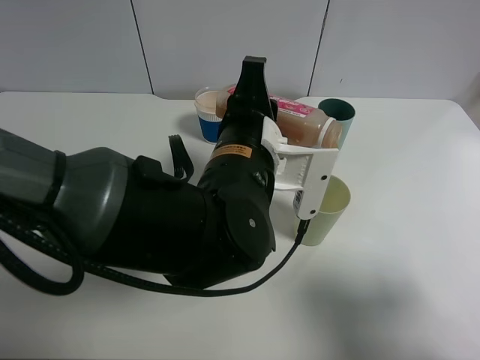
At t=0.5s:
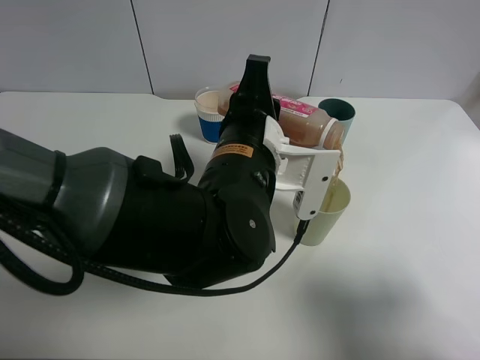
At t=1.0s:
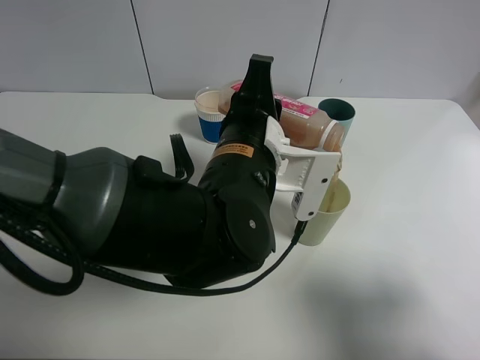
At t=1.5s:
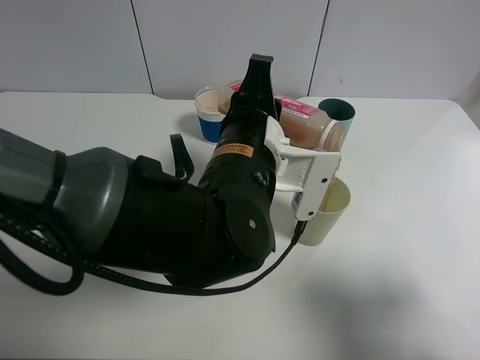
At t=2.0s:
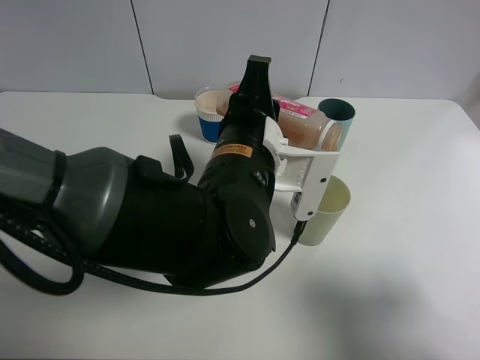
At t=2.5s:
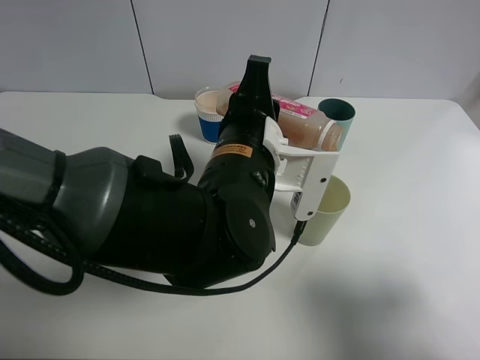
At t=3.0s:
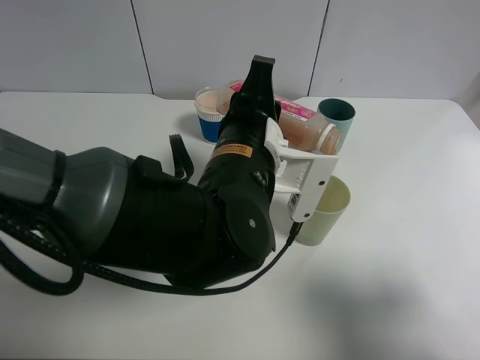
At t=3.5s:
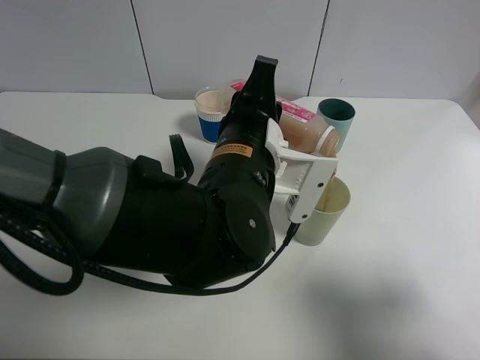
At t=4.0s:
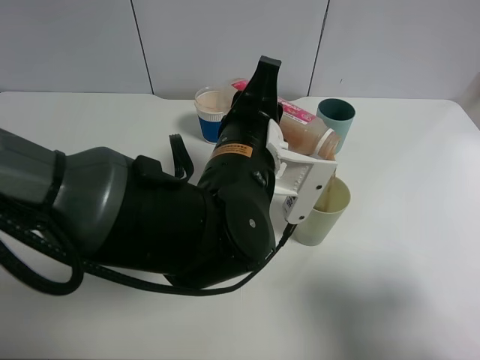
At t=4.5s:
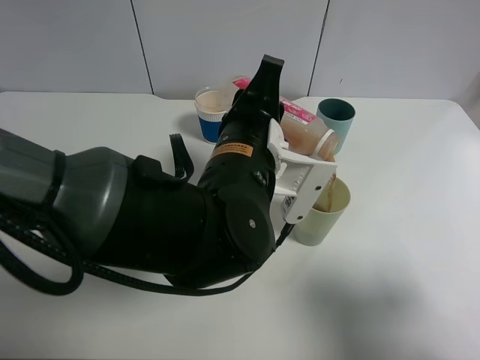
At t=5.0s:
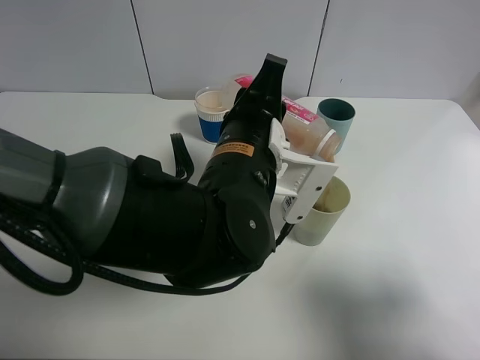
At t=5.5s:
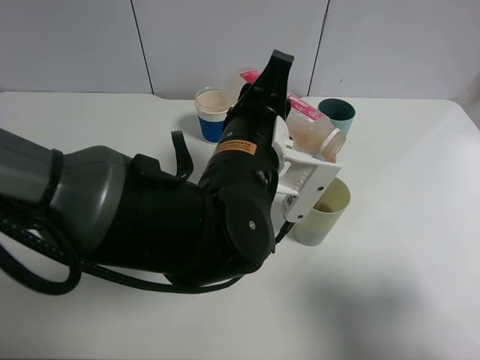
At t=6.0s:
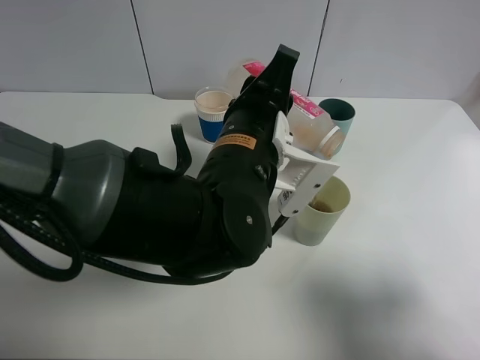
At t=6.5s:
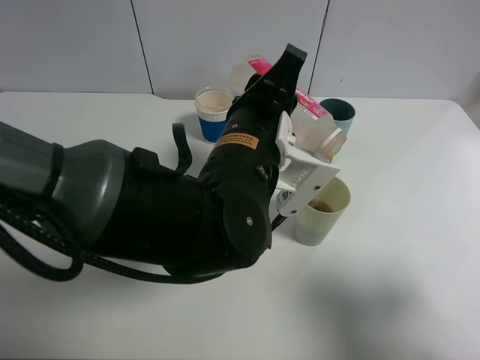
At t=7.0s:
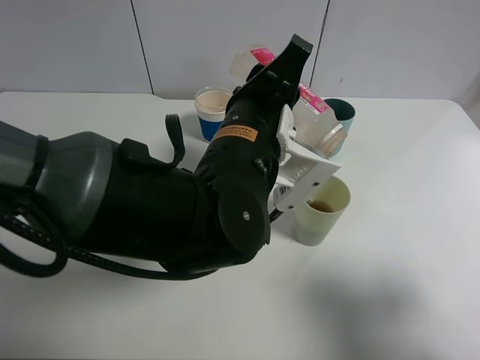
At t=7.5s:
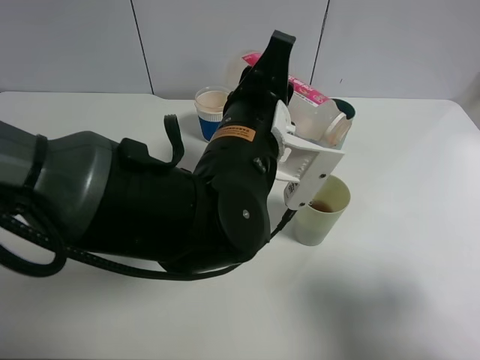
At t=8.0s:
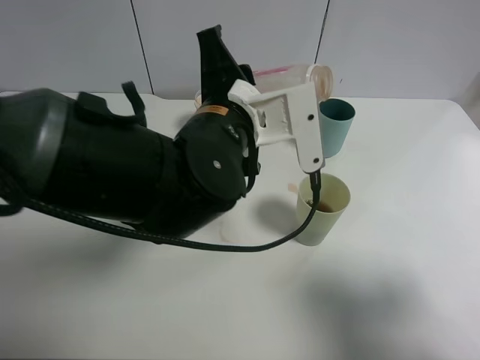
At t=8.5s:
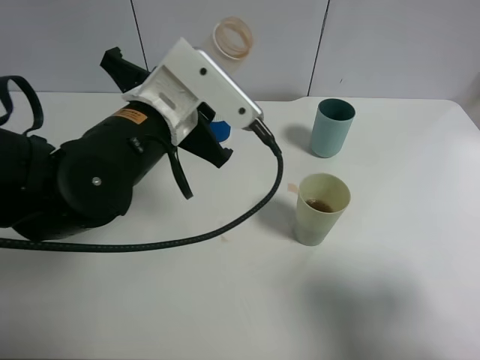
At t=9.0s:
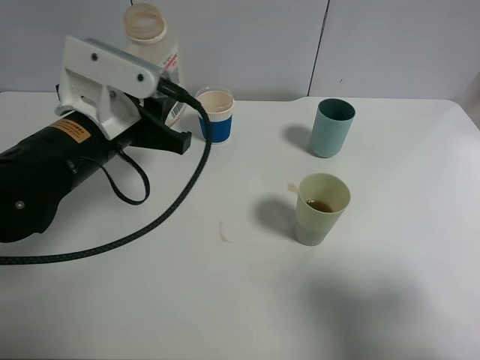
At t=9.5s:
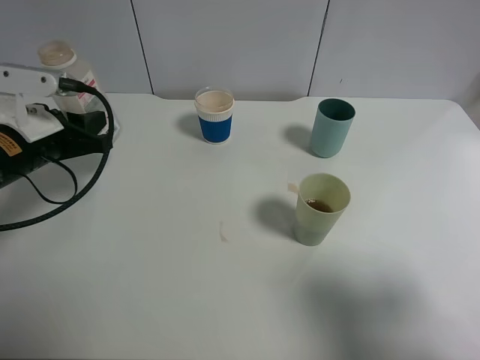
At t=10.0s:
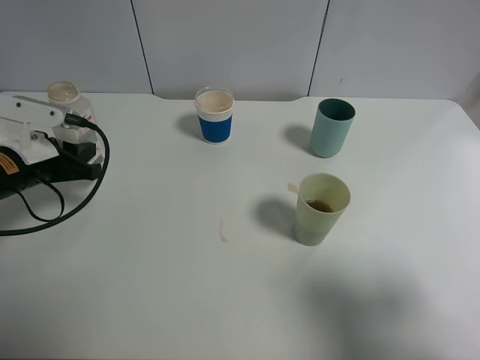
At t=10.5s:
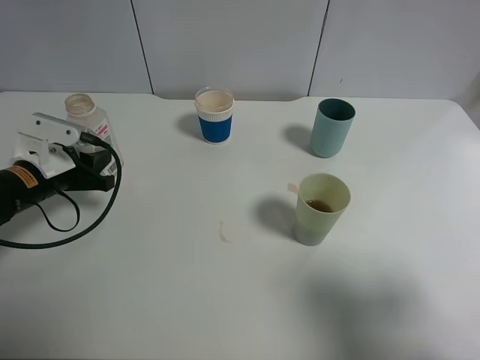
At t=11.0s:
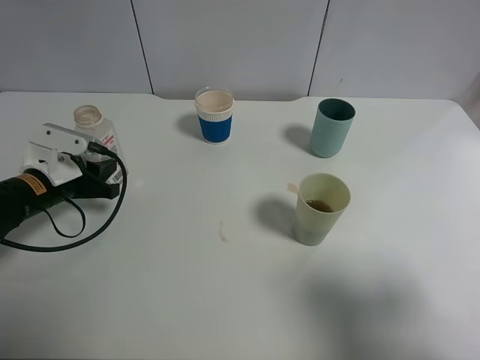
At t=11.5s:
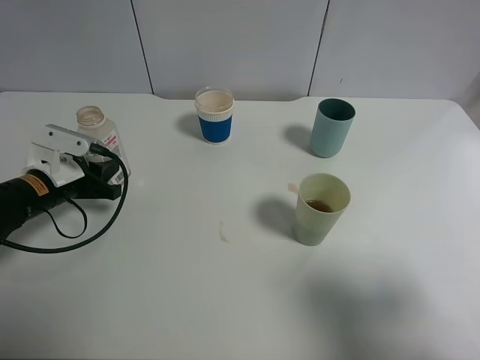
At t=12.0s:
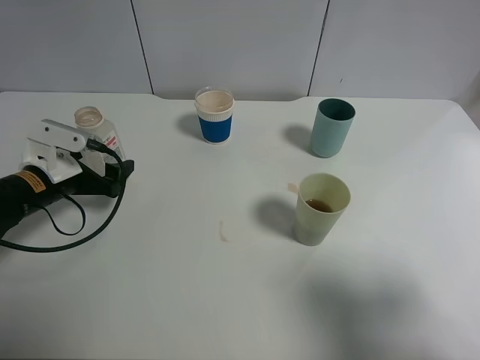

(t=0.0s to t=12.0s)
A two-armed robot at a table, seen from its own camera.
Task of the whole recording: use a clamp to hold the bottle of the drink, pour the beverage into a random cup, then clamp the cup containing the drink and pour the drink into another random cup.
Step, t=0.0s - t=7.5s: Pour the drink into the green plastic cup with left gripper.
Step, t=8.0s - t=11.5s: Place the drink bottle on the table with left gripper.
t=0.0s - t=2.0s: The two grippers keep their place.
t=2.0s - t=6.0s: The grippers move only a little.
t=8.0s - t=10.0s: The left gripper travels to the left by roughly 25 cm.
t=10.0s - t=12.0s: The left gripper opens.

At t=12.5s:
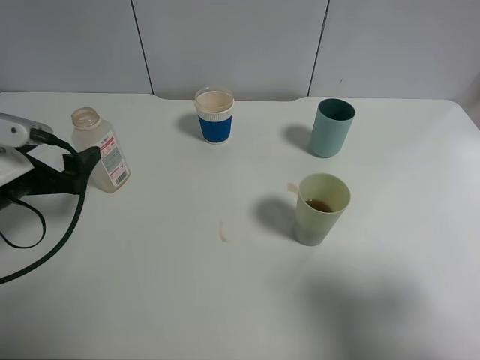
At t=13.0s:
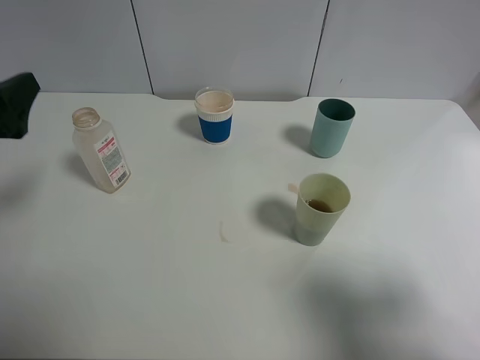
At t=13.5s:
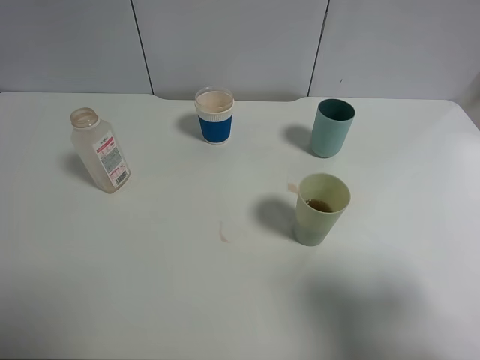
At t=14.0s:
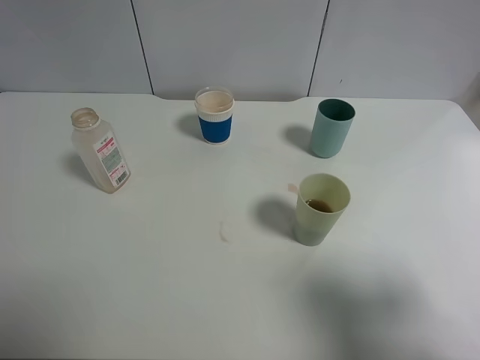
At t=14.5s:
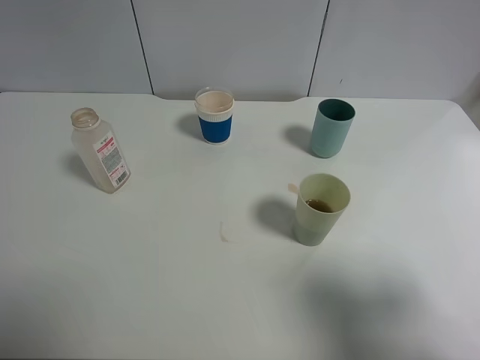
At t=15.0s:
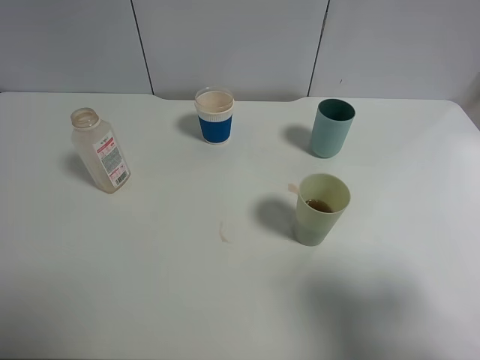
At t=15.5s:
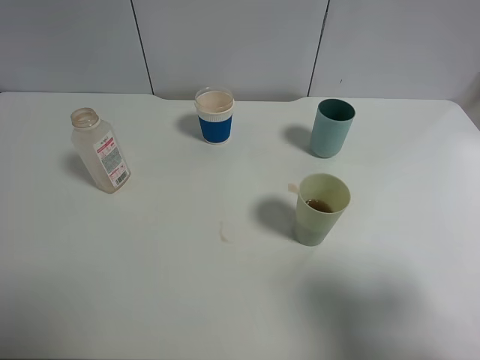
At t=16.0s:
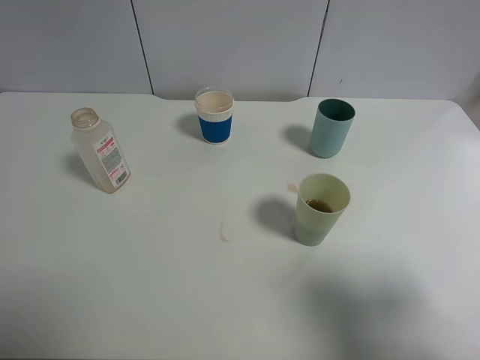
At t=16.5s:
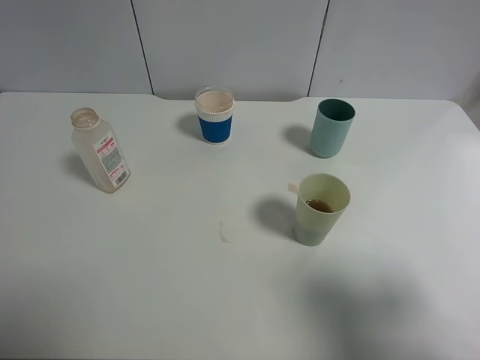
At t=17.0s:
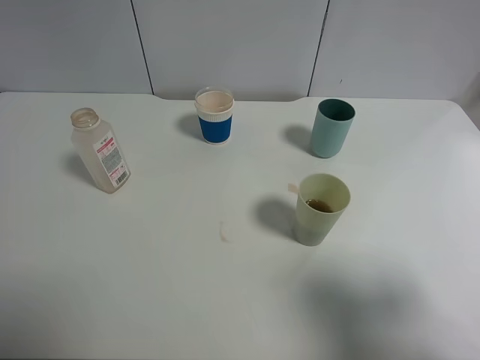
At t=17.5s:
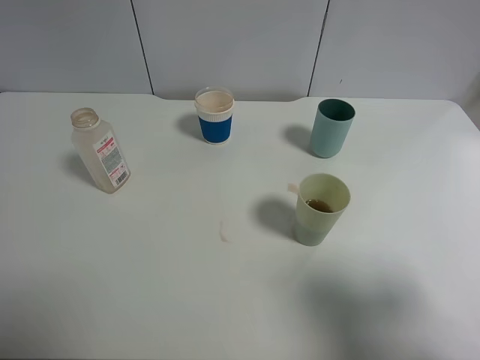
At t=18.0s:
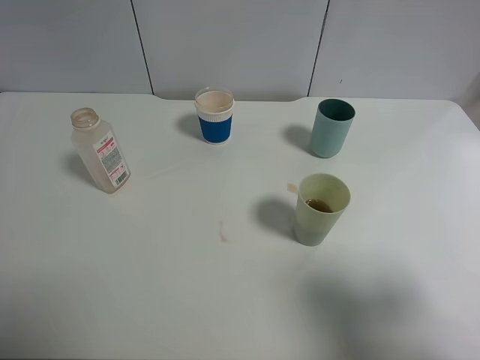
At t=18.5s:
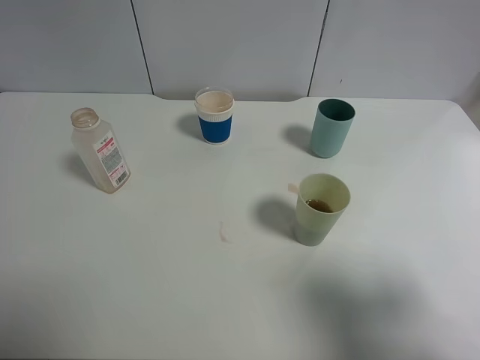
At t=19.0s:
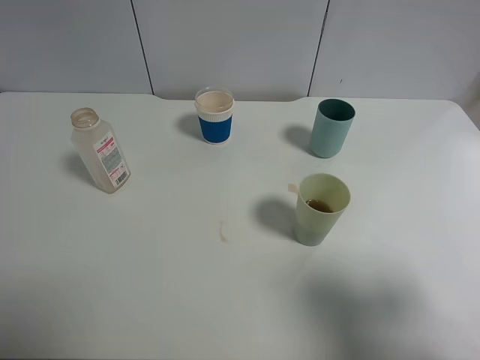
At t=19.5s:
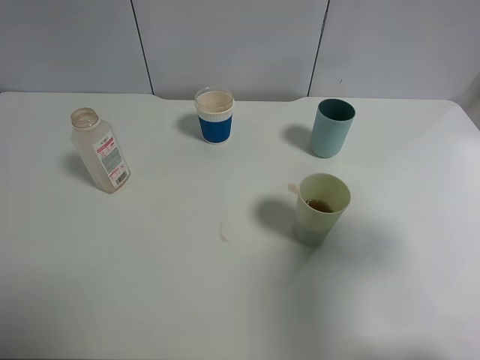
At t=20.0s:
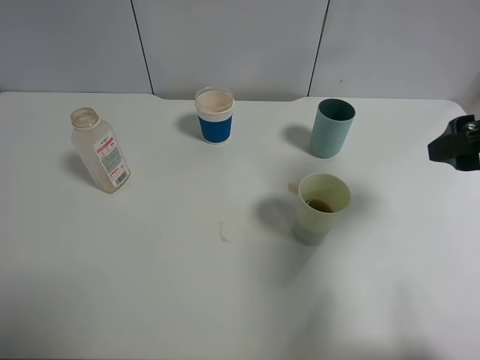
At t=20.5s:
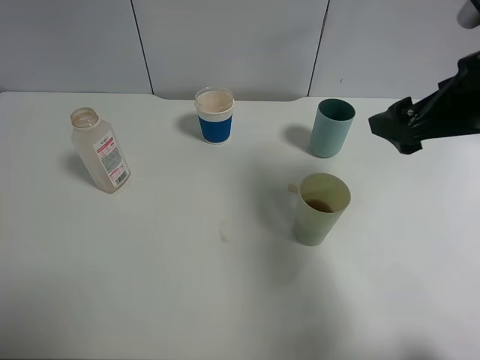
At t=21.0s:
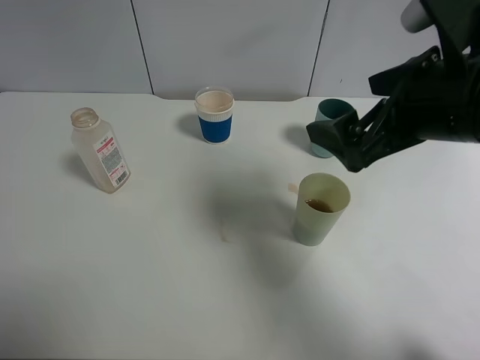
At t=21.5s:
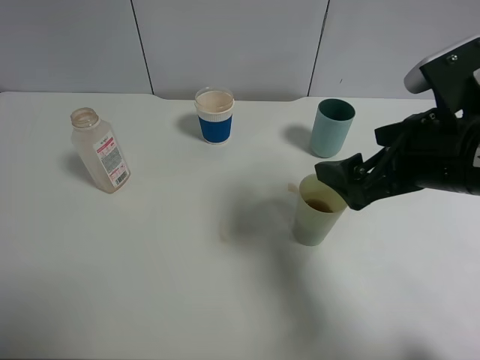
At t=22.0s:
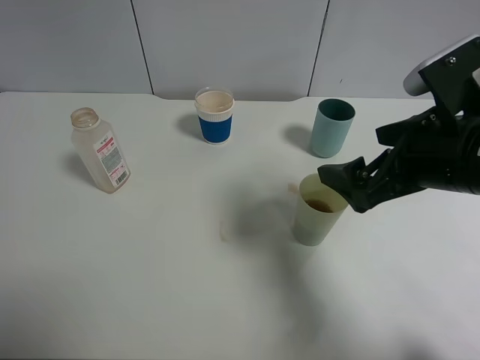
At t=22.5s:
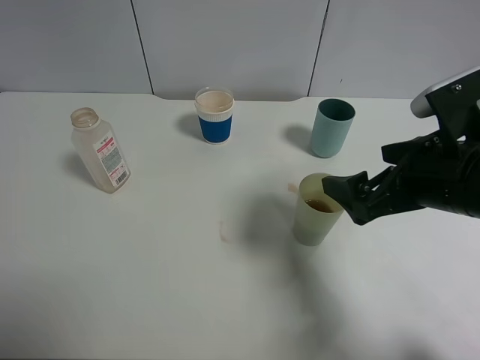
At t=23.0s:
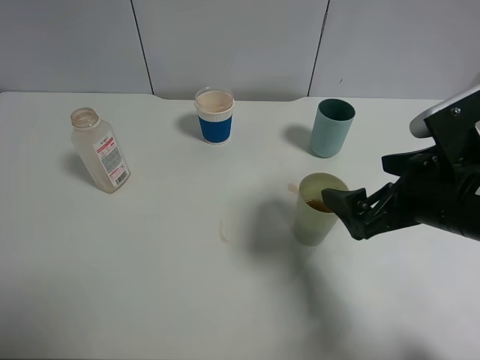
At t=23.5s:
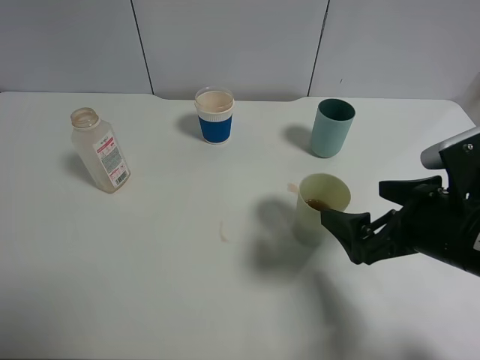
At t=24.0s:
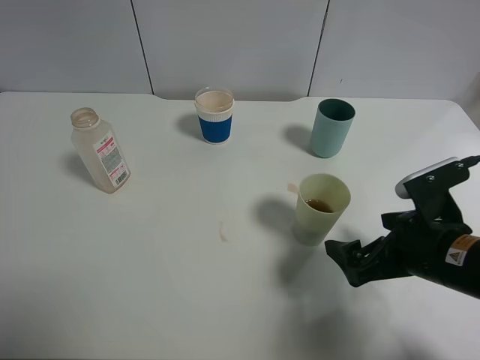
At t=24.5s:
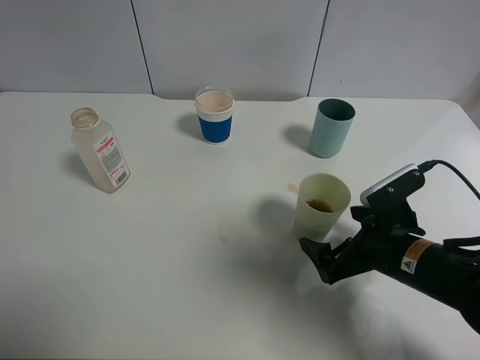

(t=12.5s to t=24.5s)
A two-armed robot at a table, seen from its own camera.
Task of the whole recording: use a clamp to hold the bottle of the drink, pour the beverage into a random cup, then clamp the cup containing the drink and pour the drink into another random cup.
t=12.5s - t=14.5s: The left gripper travels backward and upward by approximately 30 cm.
t=18.5s - t=20.5s: The right gripper shifts some 20 cm forward.
t=20.5s - t=22.5s: The right gripper shifts about 5 cm downward.
t=22.5s - t=24.5s: The right gripper is displaced downward by approximately 10 cm.

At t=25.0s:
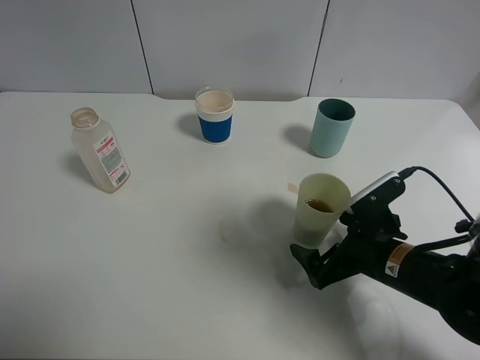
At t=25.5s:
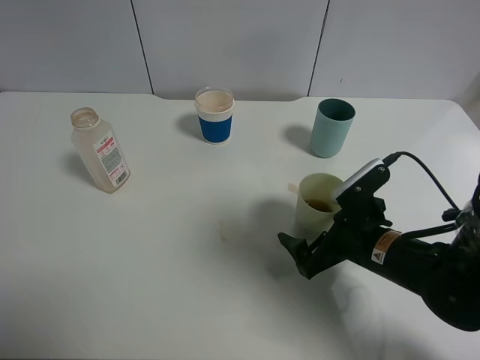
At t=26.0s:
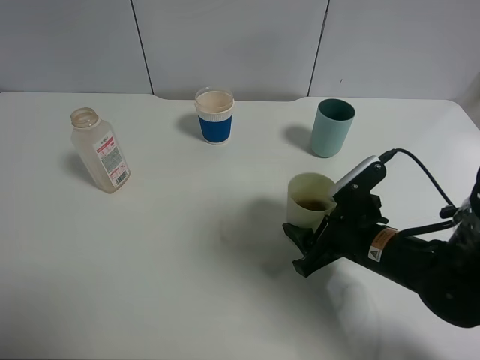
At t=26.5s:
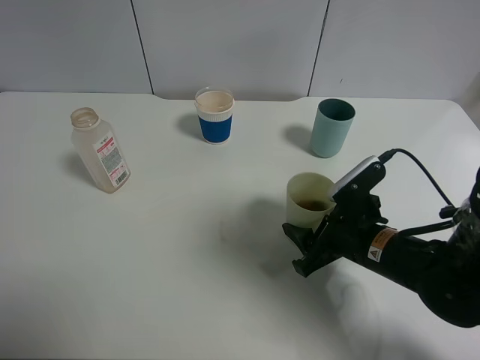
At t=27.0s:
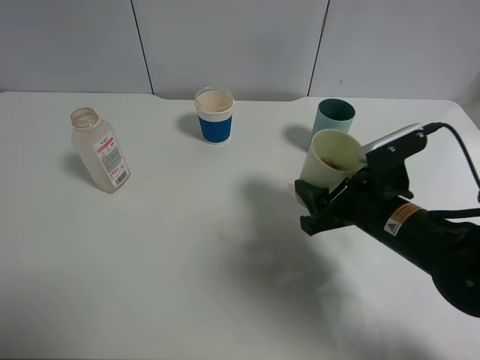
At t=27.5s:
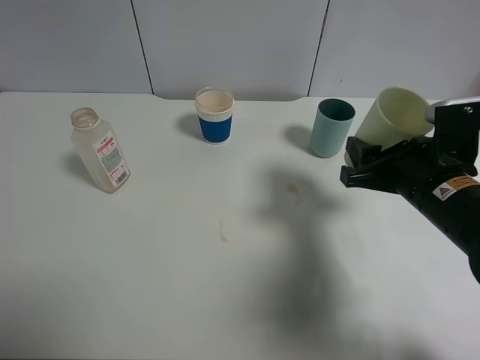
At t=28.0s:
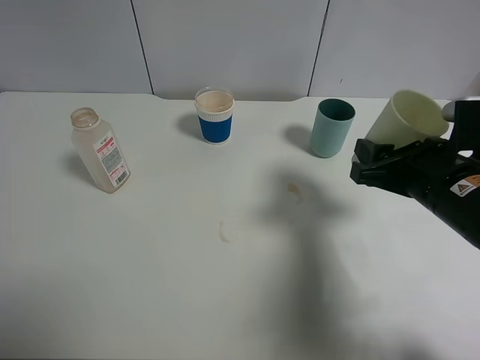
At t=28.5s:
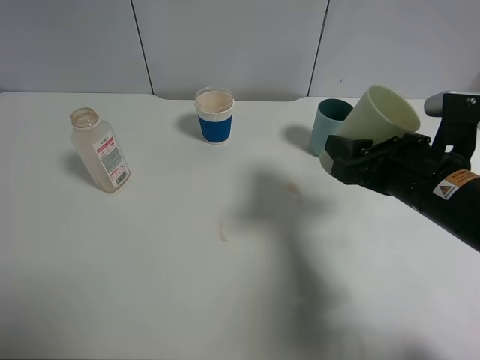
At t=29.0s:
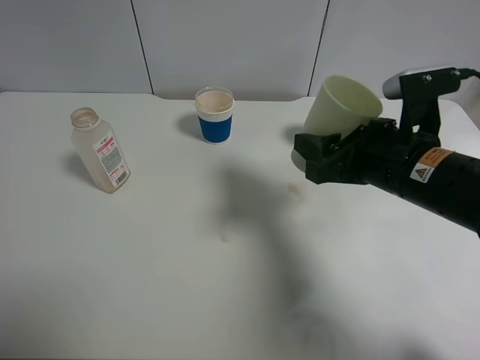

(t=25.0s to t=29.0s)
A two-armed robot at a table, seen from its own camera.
Task of the whole recording: use a clamp to hold the bottle of the drink, pour the beverage into a random cup, then clamp the cup containing the drink and pour the drink into another random cup.
t=25.0s - t=27.0s: The right gripper moves upward, approximately 5 cm, and closes its fingers.
t=27.0s - t=29.0s: The right gripper is displaced upward by approximately 5 cm.
